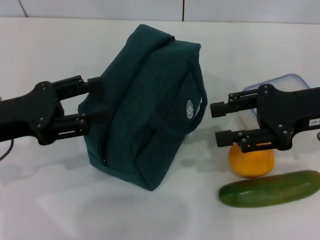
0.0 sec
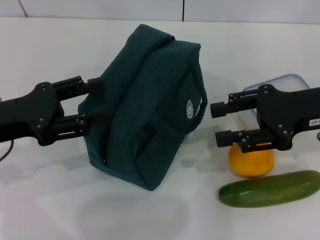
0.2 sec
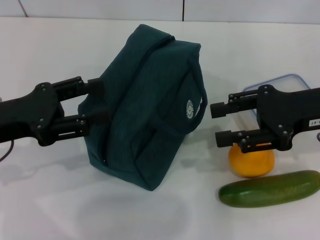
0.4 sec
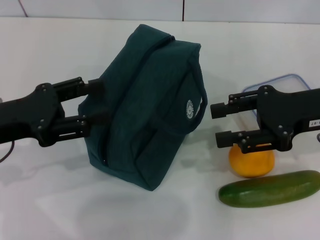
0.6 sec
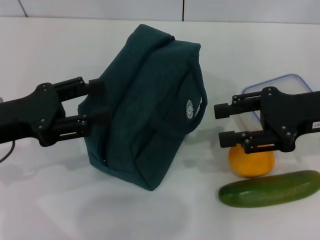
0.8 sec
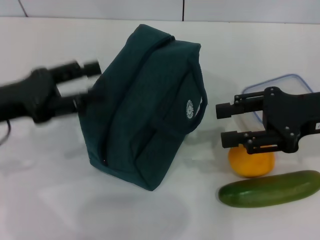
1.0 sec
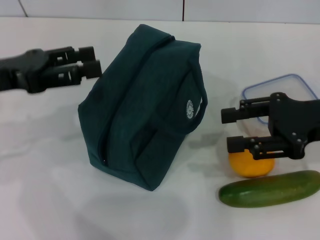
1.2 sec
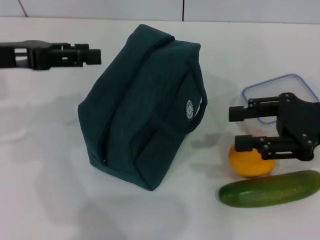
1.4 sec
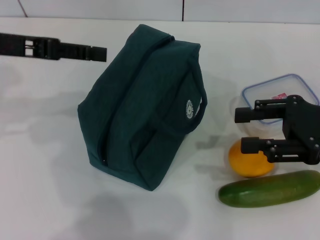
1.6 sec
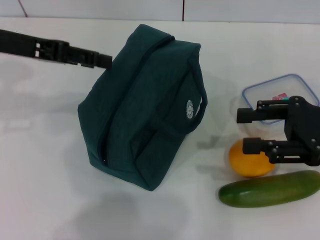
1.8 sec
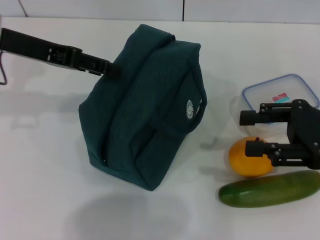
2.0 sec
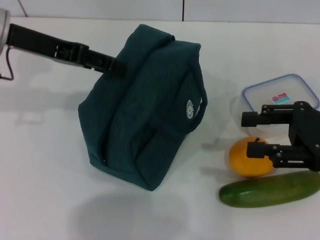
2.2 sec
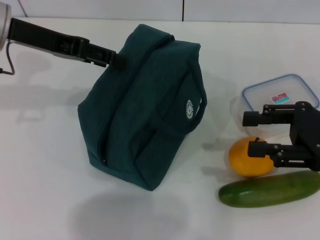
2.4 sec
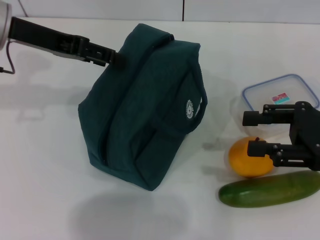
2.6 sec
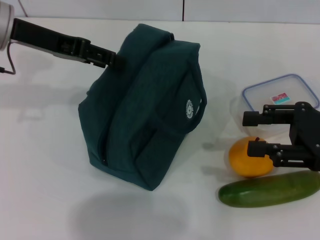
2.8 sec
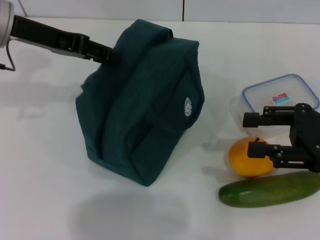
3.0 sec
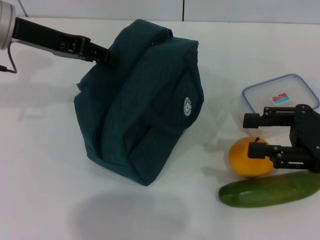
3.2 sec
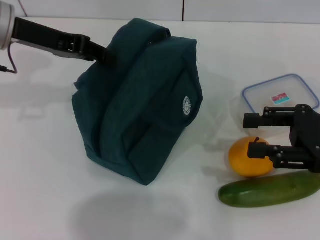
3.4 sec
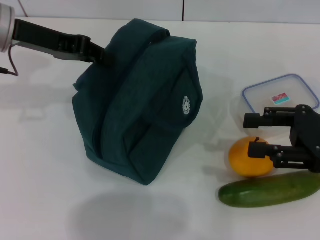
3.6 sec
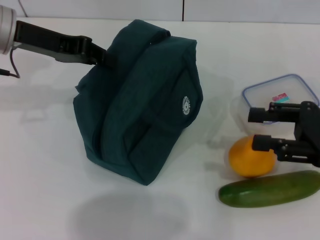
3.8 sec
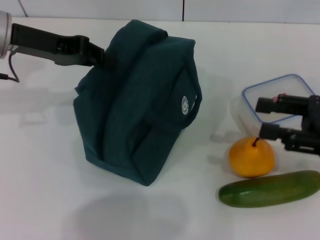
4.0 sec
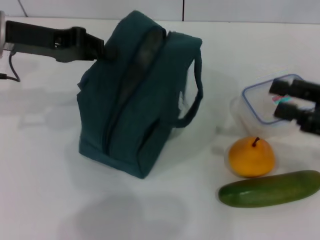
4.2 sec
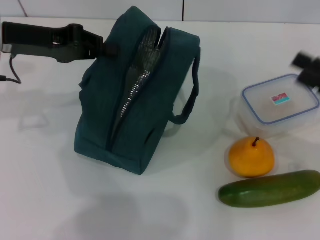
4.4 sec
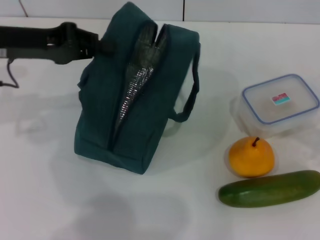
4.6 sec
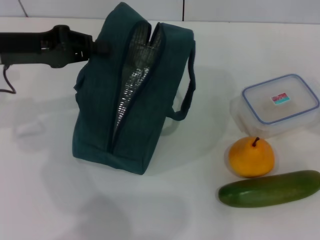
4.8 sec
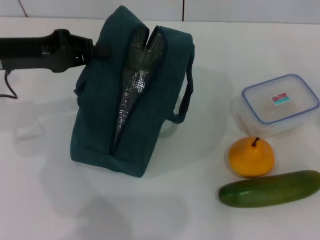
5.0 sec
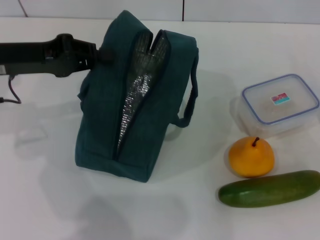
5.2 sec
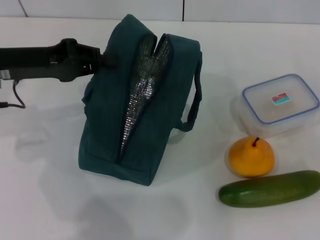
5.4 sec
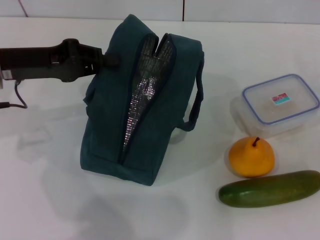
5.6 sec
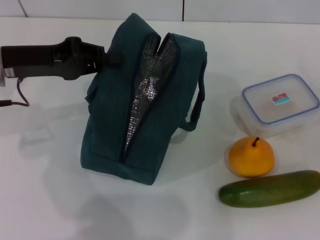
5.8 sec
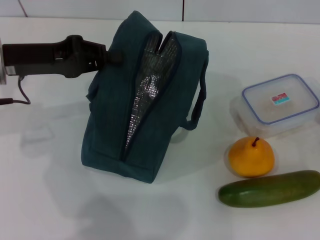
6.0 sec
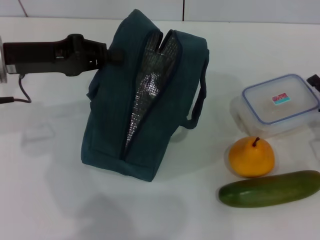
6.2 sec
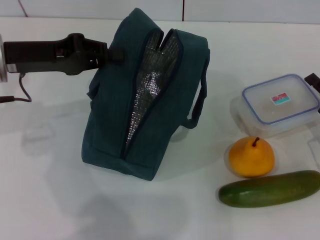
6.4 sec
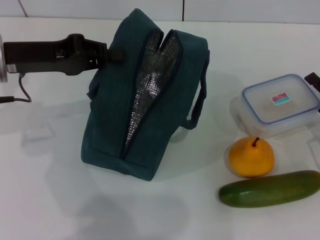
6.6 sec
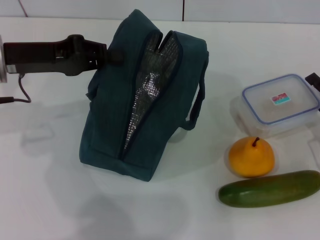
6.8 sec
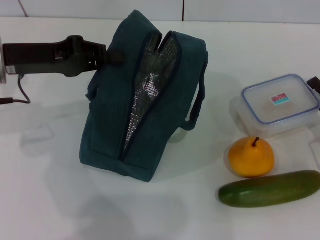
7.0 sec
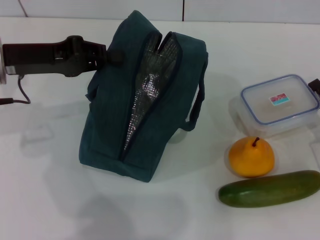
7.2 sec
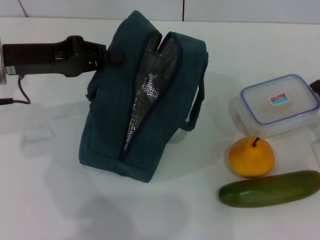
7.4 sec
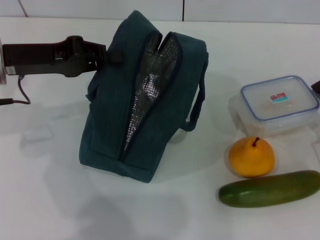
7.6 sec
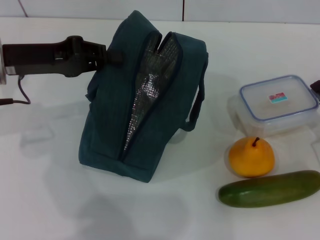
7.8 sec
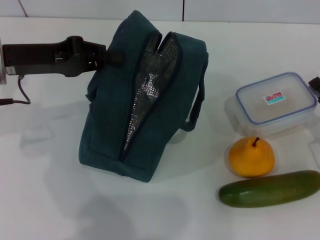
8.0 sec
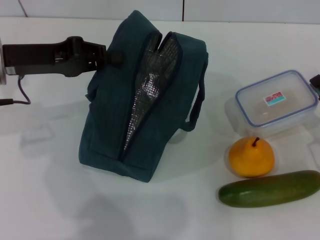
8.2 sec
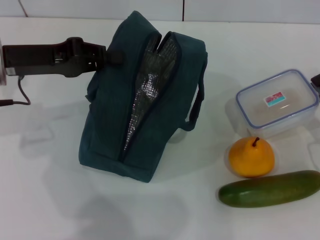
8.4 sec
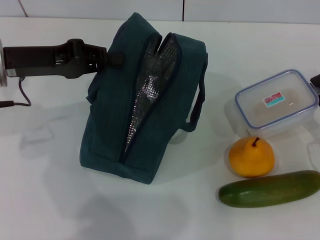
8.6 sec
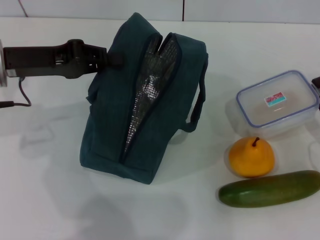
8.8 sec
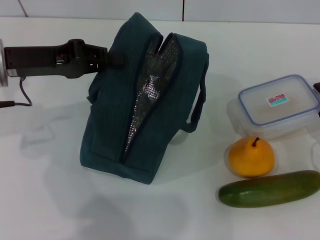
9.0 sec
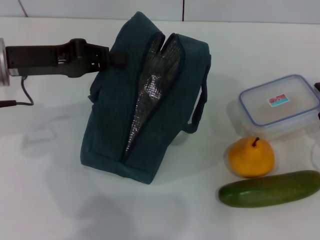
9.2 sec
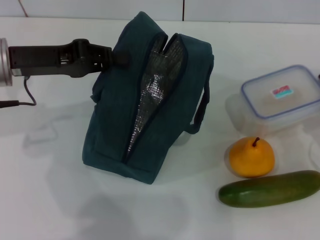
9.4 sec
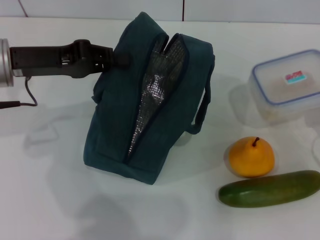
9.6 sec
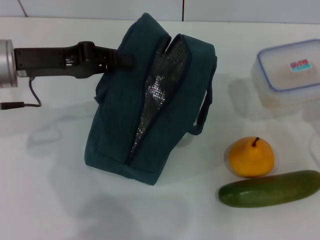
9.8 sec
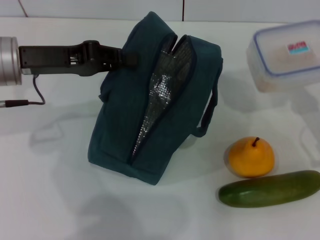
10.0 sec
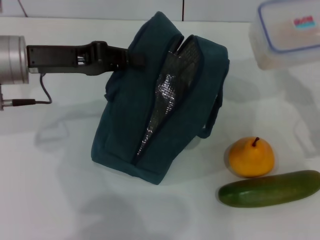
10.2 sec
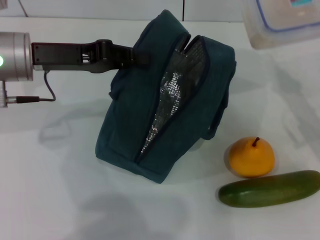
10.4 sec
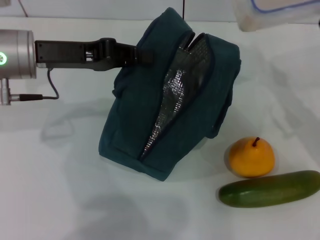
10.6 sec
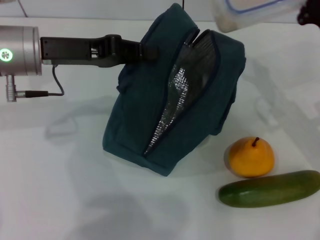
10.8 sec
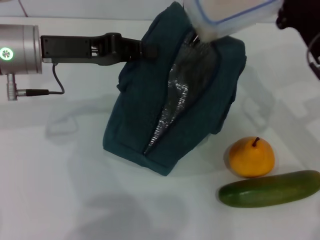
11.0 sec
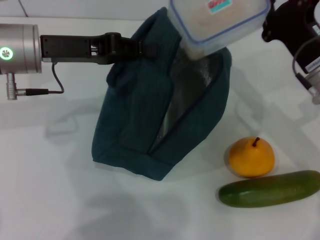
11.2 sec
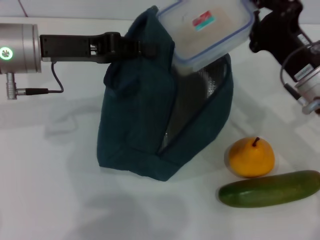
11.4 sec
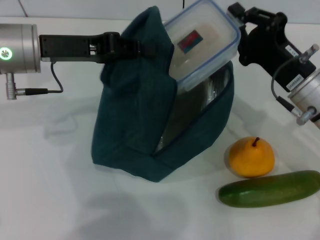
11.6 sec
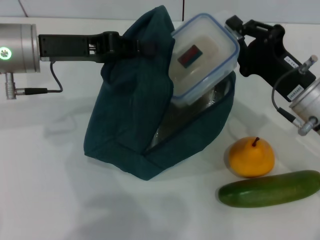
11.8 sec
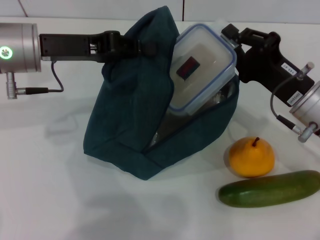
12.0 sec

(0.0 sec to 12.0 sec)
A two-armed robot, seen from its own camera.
Step, 0.0 sec - 6.2 sec: Hold the lunch bag with your left hand.
Step, 6.4 sec - 9.0 sec: Pick up the lunch box with your right hand.
0.0 sec - 1.6 sec: The left gripper is displaced forward and upward by about 10 cm.
1.6 sec - 3.0 sec: The left gripper changes place by roughly 5 cm.
3.0 sec - 4.4 sec: The left gripper closes its fingers.
4.4 sec - 6.0 sec: The right gripper moves downward, some 10 cm.
6.0 sec - 7.6 sec: The right gripper closes its fingers.
9.0 sec - 10.4 sec: The right gripper goes about 5 cm upward.
10.4 sec - 12.0 sec: The right gripper is displaced to the left by about 10 cm.

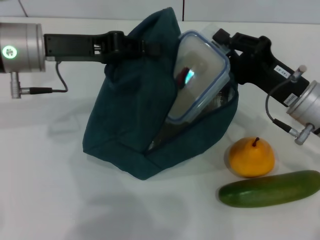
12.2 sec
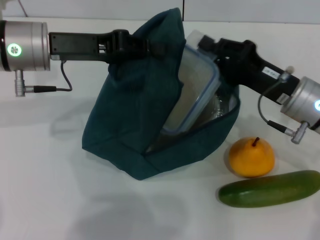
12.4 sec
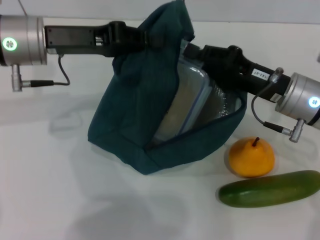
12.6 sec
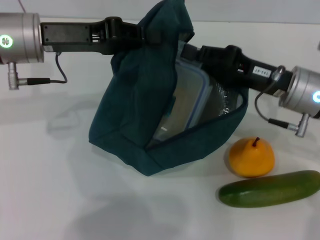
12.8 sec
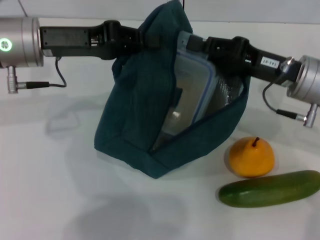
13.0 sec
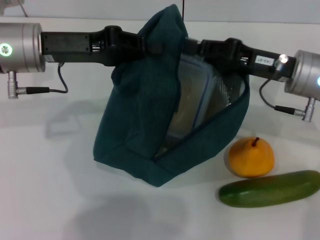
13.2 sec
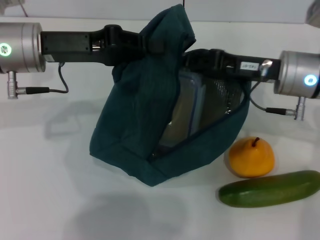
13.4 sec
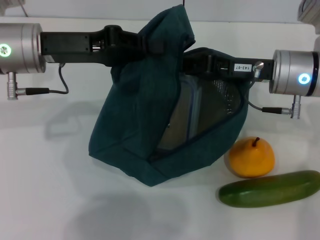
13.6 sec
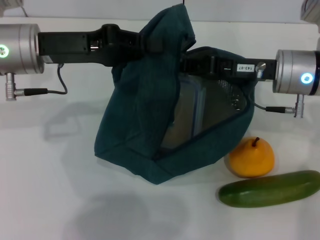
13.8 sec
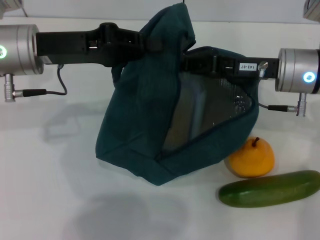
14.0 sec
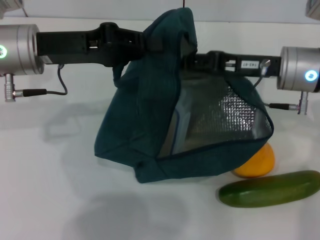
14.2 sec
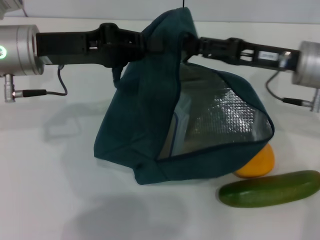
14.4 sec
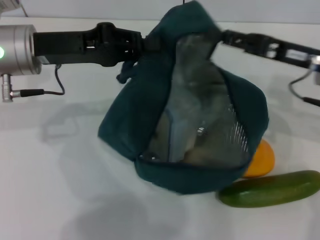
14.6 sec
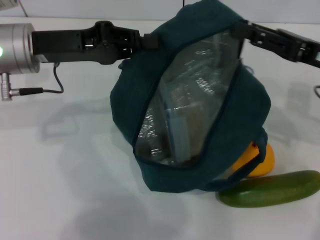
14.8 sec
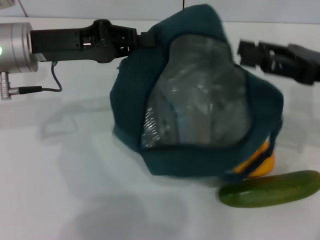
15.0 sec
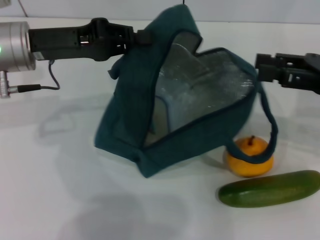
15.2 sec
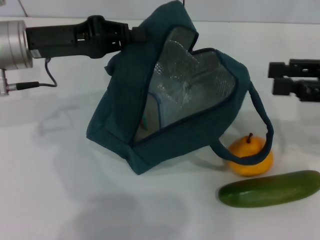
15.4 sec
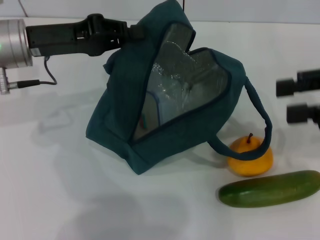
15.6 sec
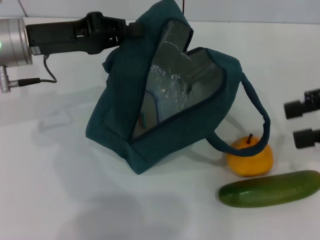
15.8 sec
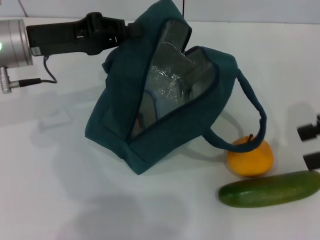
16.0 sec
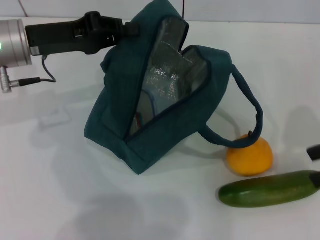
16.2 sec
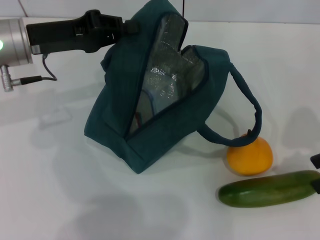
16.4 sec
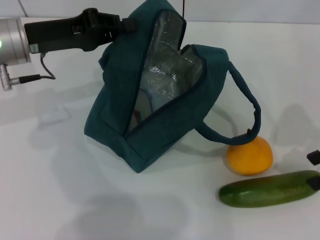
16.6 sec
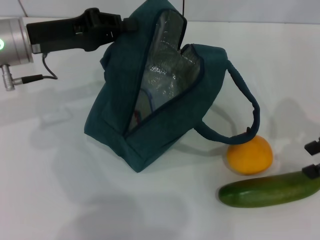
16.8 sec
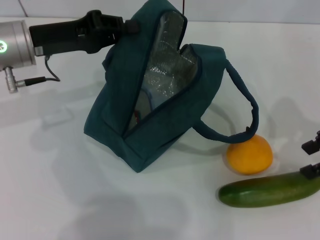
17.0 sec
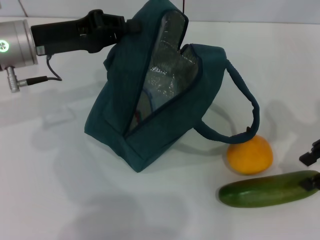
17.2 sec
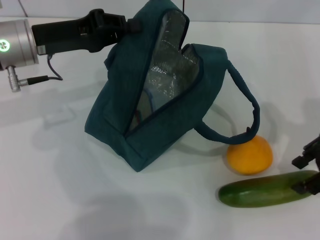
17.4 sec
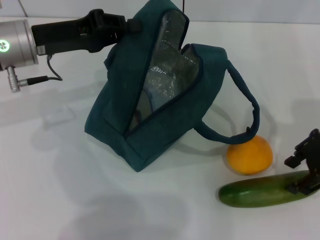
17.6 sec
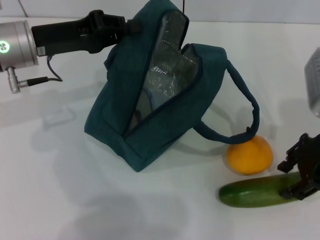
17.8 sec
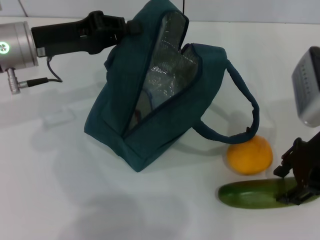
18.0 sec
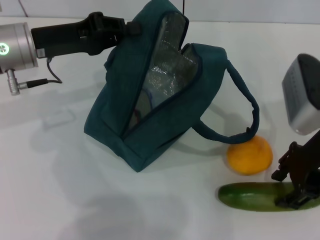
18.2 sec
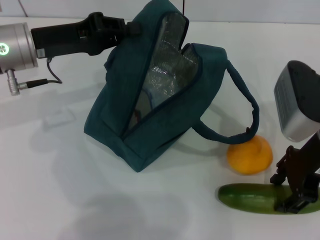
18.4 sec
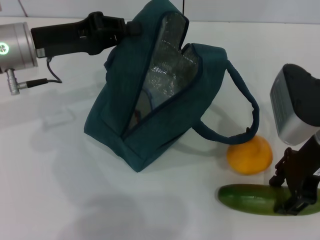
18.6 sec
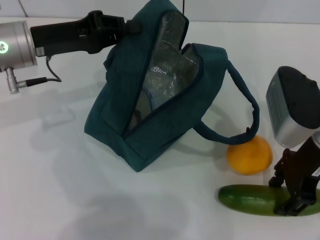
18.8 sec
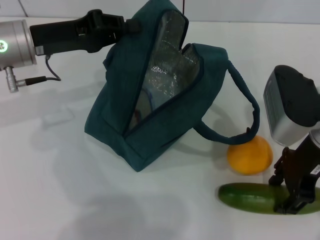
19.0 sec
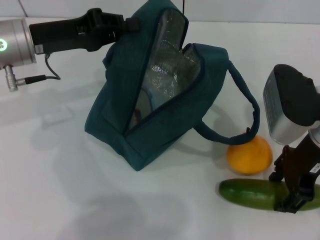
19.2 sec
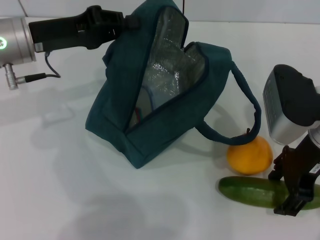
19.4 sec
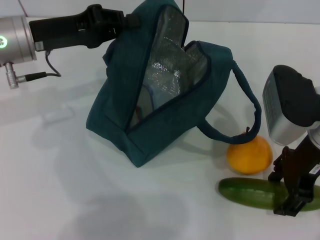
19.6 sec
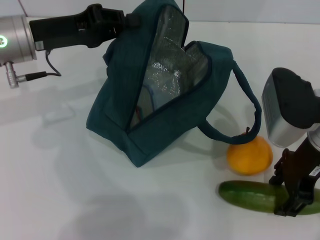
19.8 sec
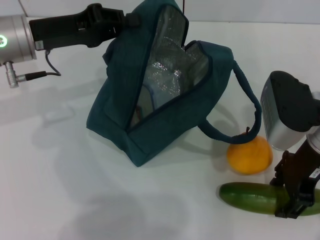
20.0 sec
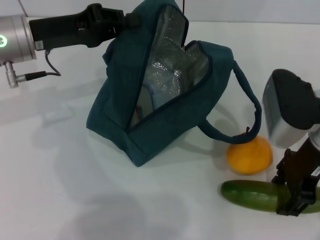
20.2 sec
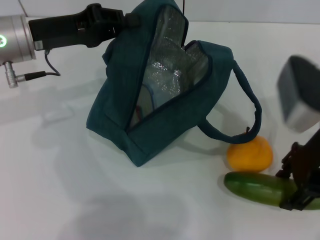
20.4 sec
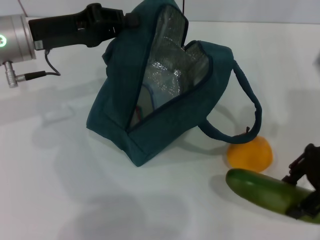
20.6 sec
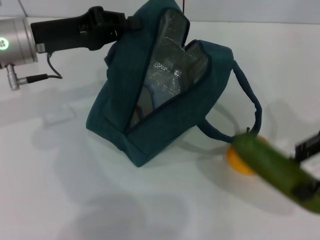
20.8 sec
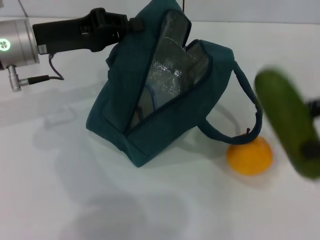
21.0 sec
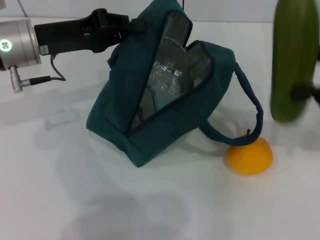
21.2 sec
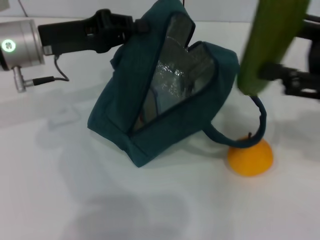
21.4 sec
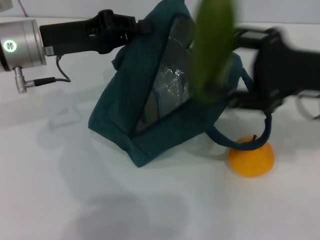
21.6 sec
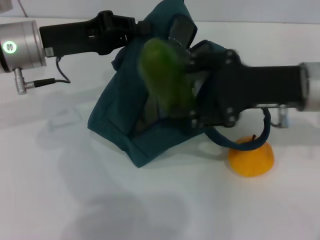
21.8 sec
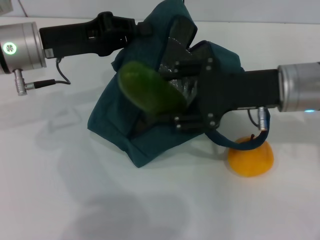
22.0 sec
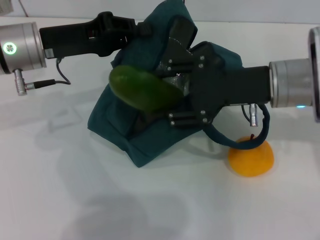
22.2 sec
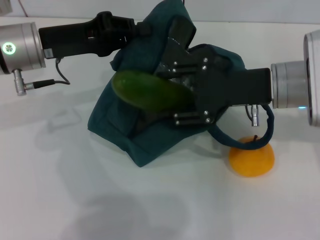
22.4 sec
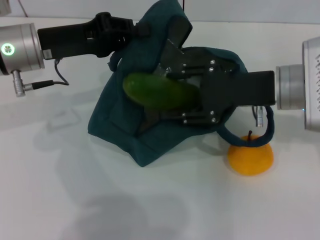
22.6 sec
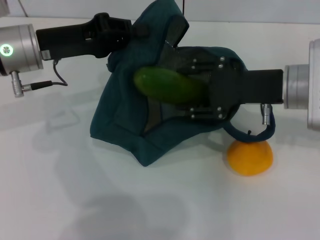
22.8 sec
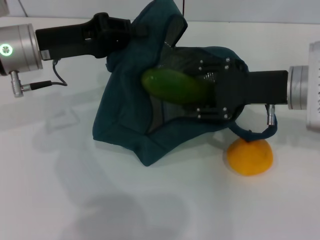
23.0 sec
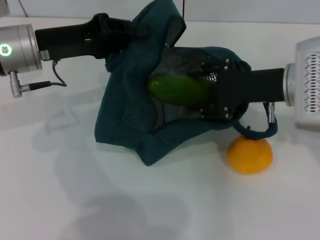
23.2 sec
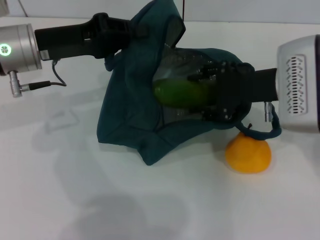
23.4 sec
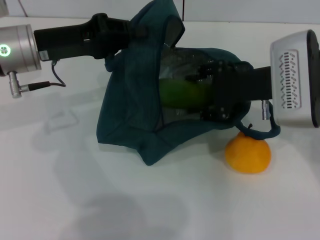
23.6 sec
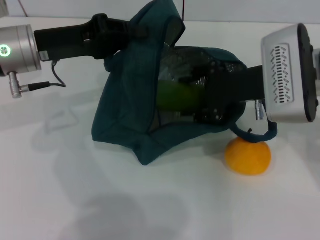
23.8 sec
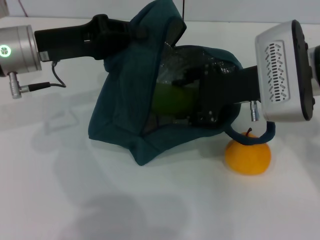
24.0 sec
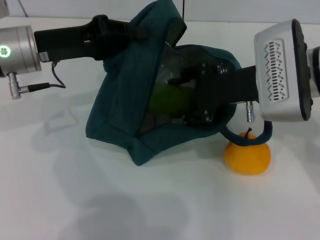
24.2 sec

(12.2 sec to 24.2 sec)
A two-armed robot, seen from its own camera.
Step, 12.2 sec - 14.2 sec: Place the lunch box into the lunch bag with your right hand.
Step, 14.4 sec - 19.8 sec: Pick up the cucumber with your right hand.
12.2 sec - 13.8 sec: The right gripper moves upward, about 5 cm.
13.8 sec - 15.2 sec: The right gripper heads to the right, covering about 10 cm, and opens.
16.6 sec - 18.2 sec: The right gripper is displaced to the left by roughly 10 cm.
18.2 sec - 19.8 sec: The grippers move only a little.
19.8 sec - 21.2 sec: The right gripper goes about 15 cm to the right.
21.2 sec - 22.6 sec: The right gripper heads to the left and downward, covering about 15 cm.
